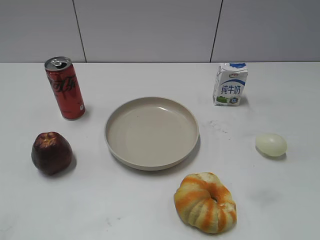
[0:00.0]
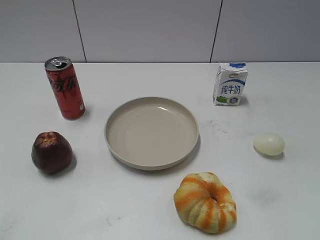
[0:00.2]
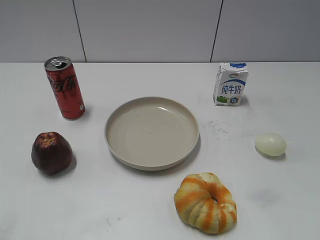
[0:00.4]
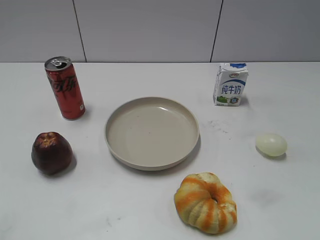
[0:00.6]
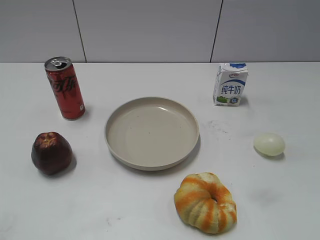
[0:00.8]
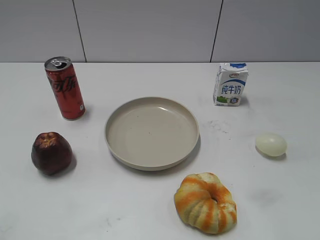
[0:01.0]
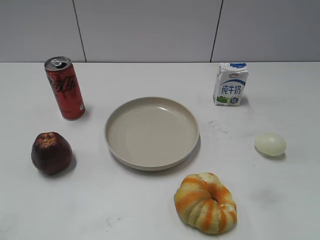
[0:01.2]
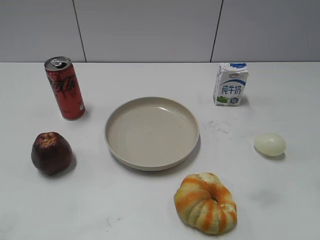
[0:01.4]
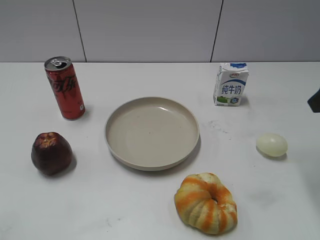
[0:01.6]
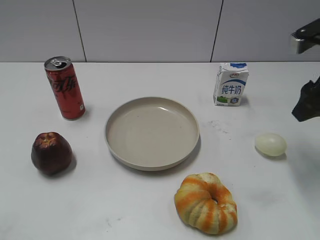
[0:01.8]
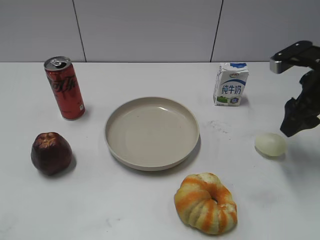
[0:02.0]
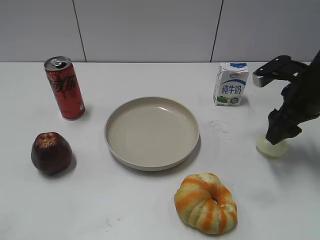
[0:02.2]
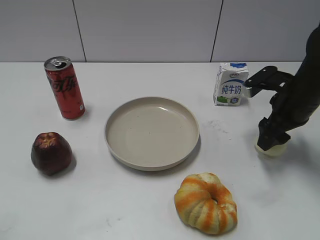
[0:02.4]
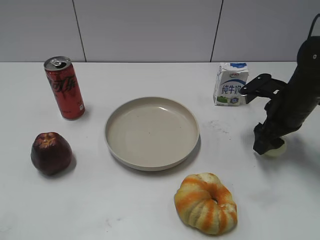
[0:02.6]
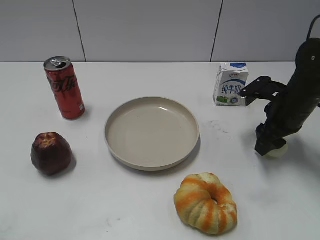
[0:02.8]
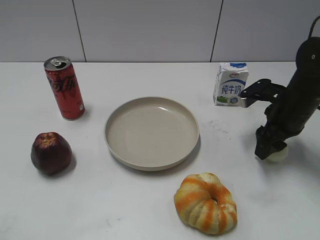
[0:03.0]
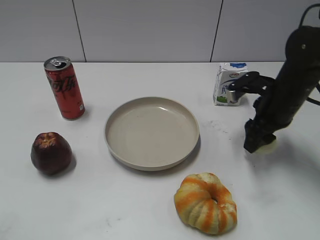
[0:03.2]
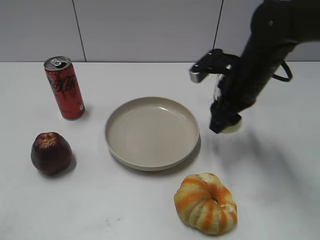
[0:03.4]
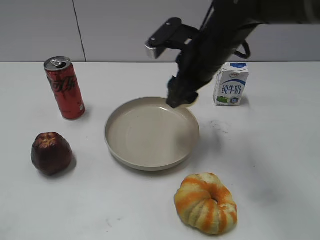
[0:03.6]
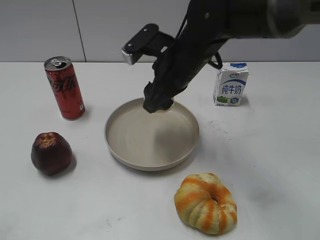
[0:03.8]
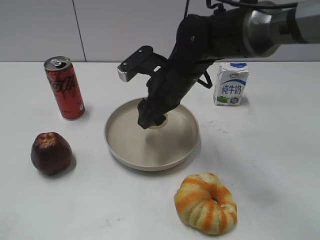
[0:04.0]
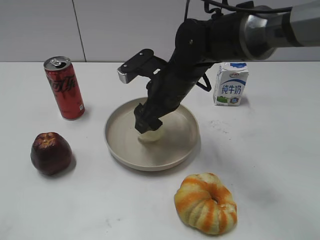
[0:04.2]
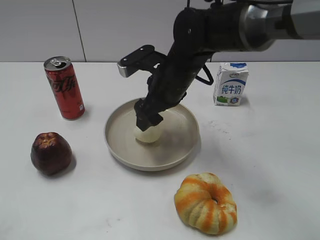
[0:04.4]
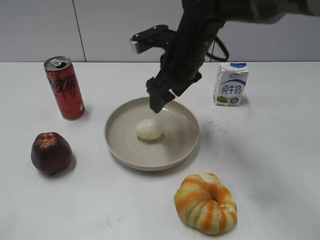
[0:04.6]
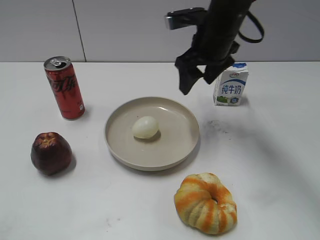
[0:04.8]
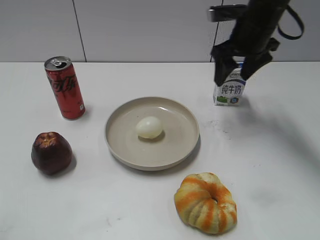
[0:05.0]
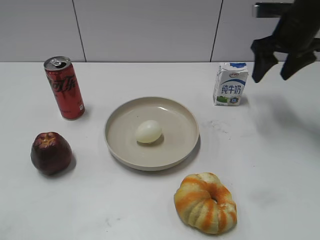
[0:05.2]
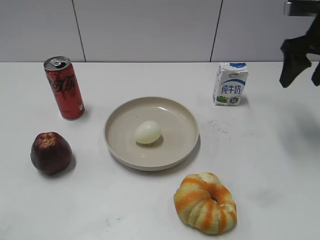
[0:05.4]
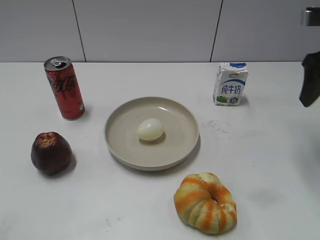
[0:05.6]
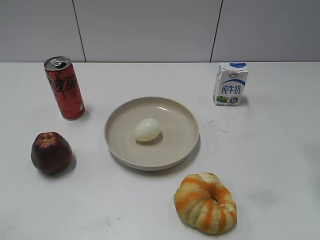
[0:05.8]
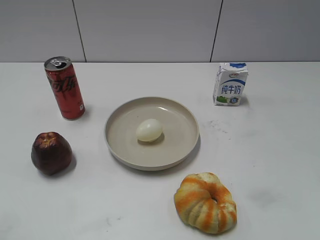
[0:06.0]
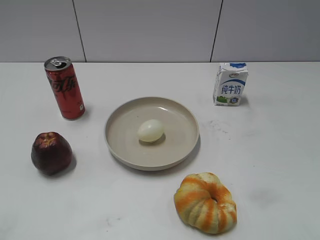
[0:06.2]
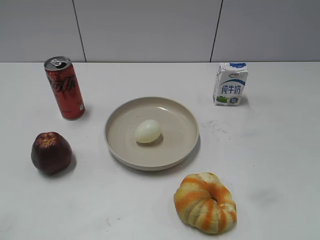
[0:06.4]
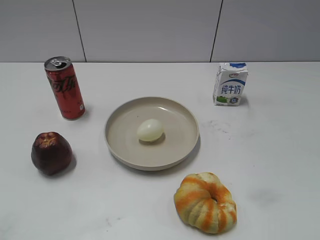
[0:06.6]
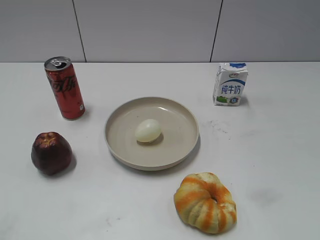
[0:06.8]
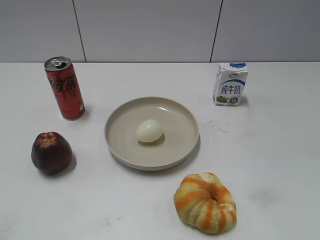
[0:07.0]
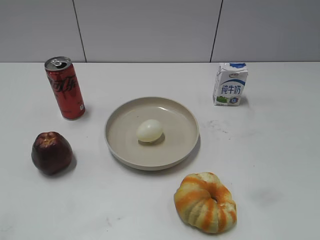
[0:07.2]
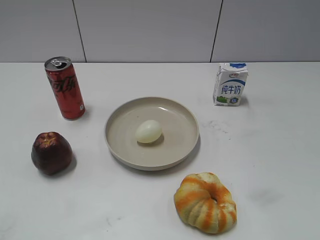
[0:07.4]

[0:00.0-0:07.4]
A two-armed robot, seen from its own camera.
Step, 0:00.0 to 0:02.8: Grasp the egg with right gripper.
Step, 0:03.0 to 0:04.4: Place the egg on the plate with right gripper.
0:01.4 to 0:03.0: The right gripper goes some 25 cm downward and forward, and closes.
0:03.0 to 0:04.4: The right gripper shifts some 20 cm to the left, and opens.
0:04.4 to 0:06.0: The right gripper goes some 30 cm to the right, backward and upward.

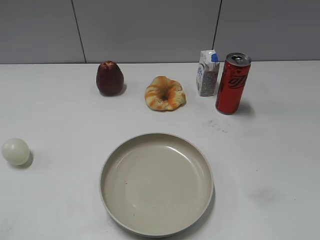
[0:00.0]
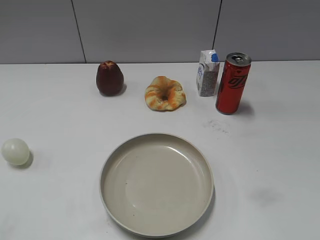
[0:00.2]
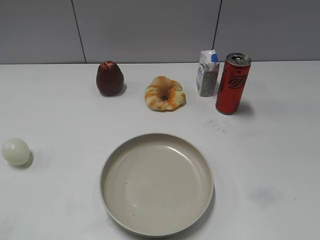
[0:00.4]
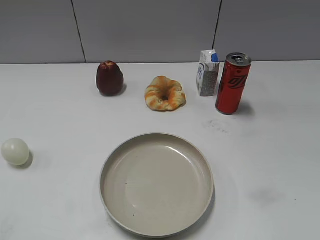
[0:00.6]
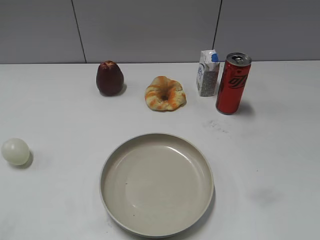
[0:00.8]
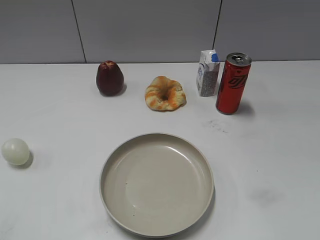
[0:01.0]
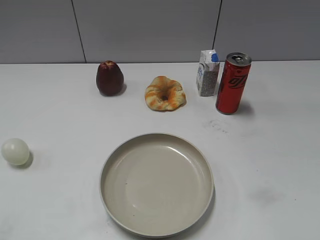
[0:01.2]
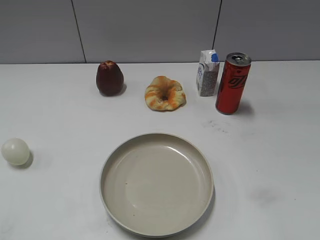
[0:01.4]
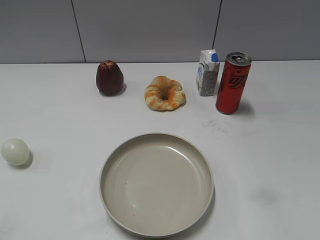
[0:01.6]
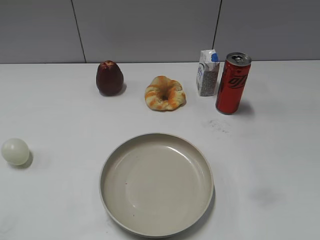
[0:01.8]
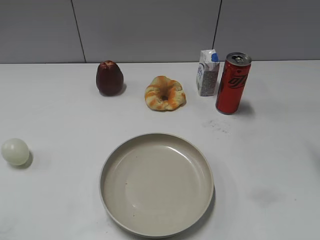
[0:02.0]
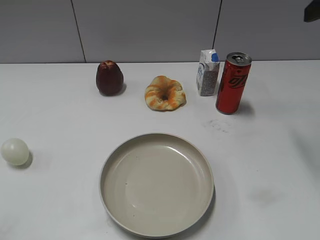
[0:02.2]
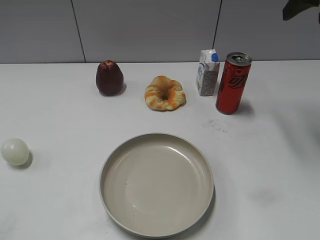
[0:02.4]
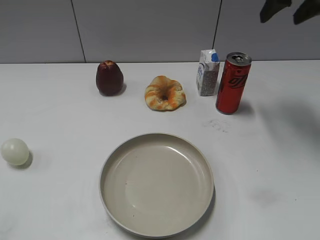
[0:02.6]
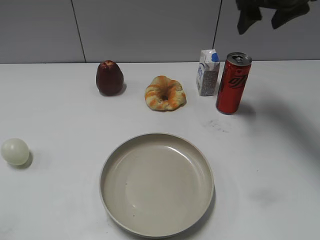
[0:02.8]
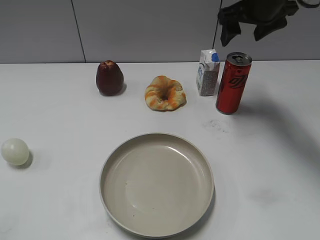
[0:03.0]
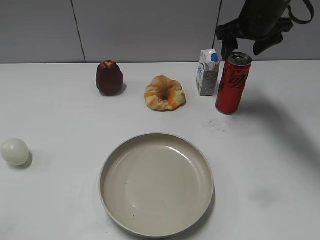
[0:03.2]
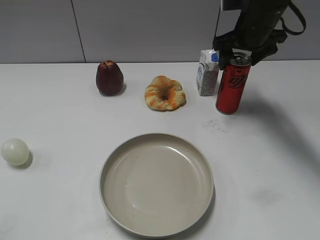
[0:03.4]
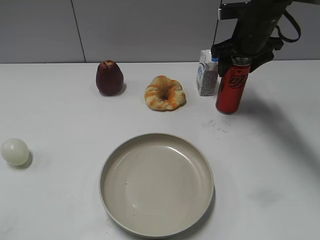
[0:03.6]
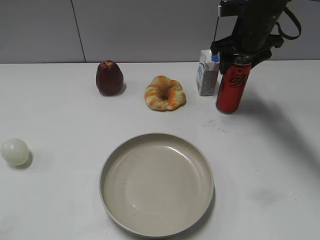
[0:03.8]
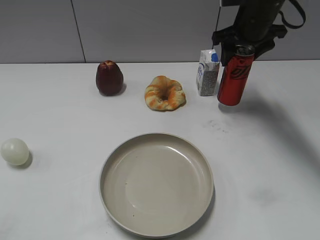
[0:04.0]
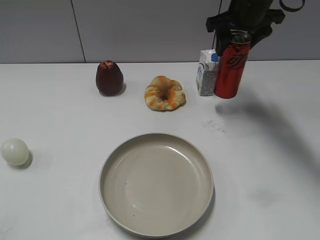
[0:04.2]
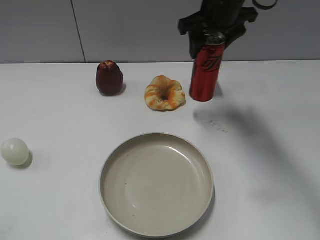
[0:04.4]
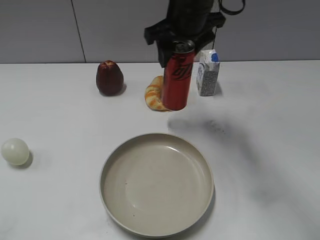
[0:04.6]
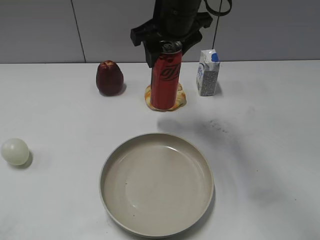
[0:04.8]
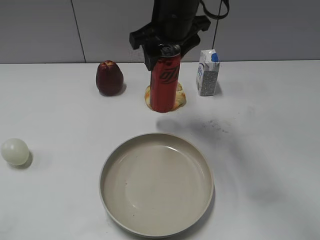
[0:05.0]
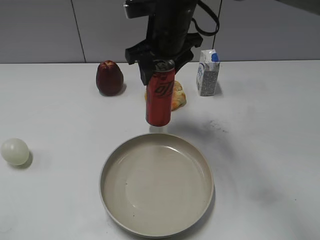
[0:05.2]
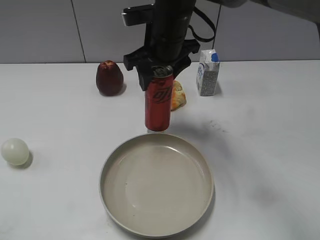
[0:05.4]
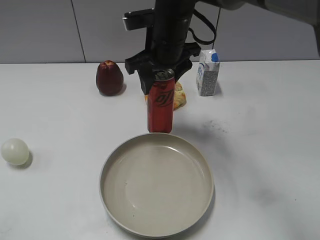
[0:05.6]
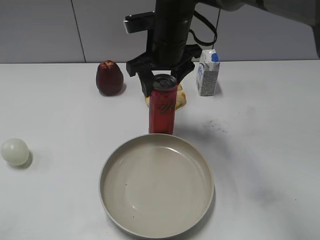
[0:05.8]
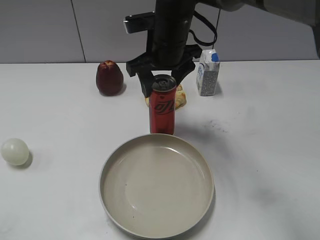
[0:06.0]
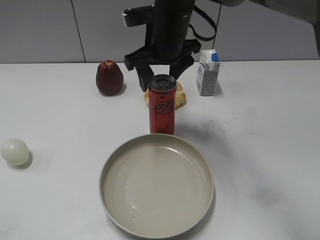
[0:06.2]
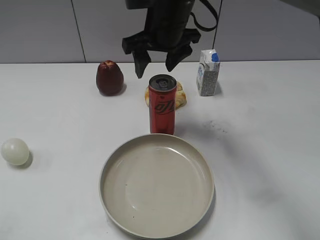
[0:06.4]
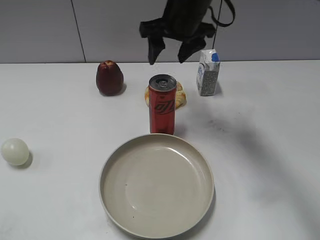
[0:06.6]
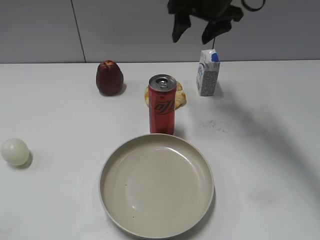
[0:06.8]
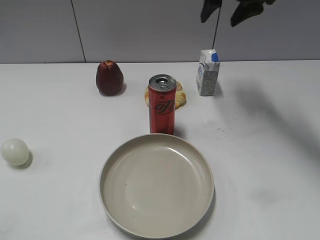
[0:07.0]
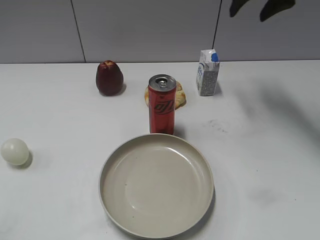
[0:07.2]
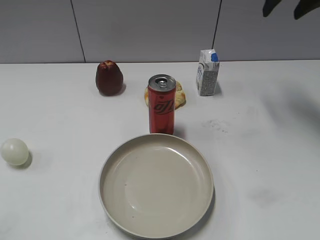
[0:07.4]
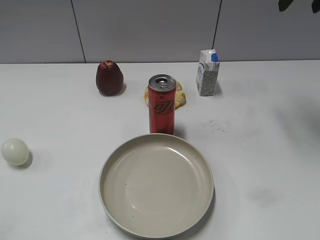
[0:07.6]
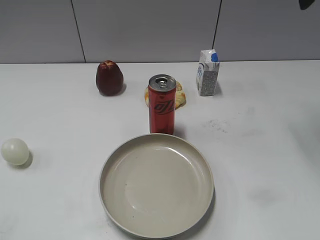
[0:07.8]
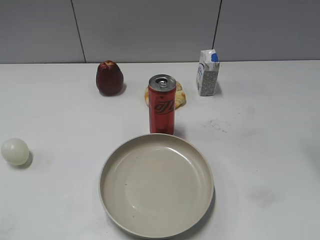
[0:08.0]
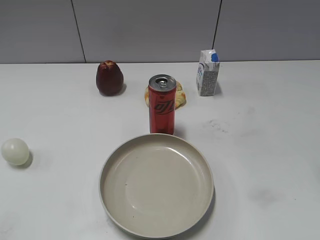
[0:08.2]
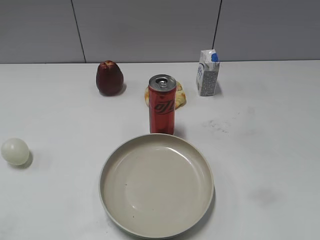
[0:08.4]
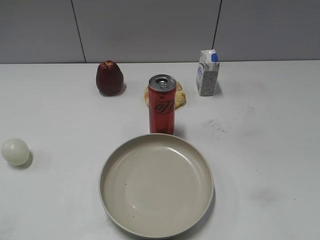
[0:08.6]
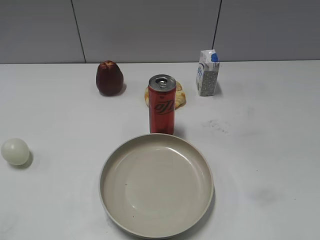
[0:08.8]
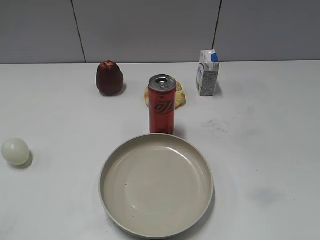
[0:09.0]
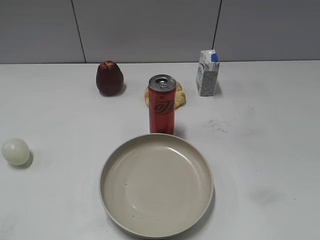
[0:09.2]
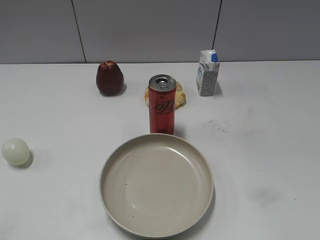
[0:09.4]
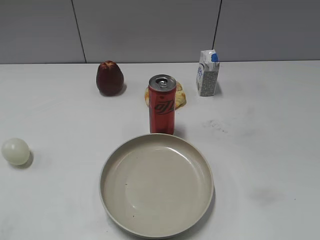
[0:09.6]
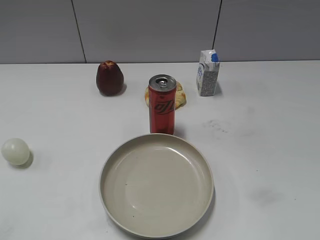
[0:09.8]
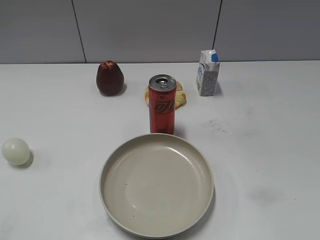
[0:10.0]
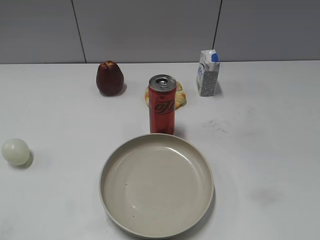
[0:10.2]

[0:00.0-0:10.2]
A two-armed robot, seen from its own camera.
Step, 0:00.8 to 0:03.6: Place the cola on the table with right gripper.
0:01.4 to 0:03.0: The right gripper heads forward, covering some 40 cm, and opens its fingers.
0:03.0 to 0:04.4: The right gripper moves to the left, about 10 cm, and closes up.
0:04.4 to 0:05.8: The right gripper shifts about 10 cm to the left.
0:05.8 to 0:07.2: The right gripper goes roughly 25 cm to the right and upward.
0:07.2 to 0:08.8: The right gripper heads backward, covering approximately 35 cm, and closes up.

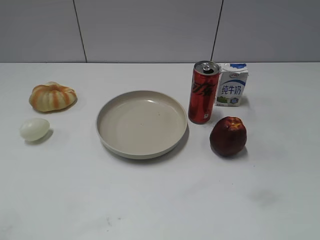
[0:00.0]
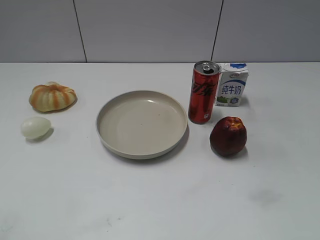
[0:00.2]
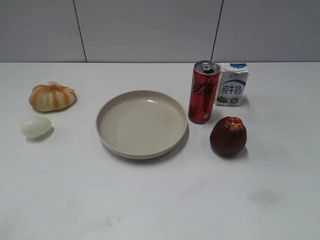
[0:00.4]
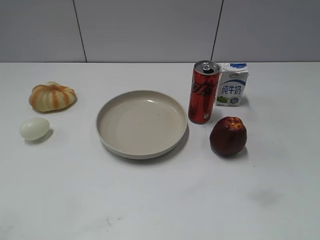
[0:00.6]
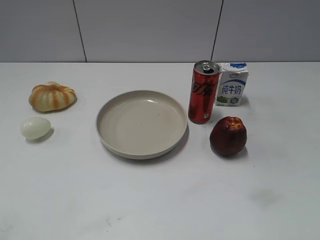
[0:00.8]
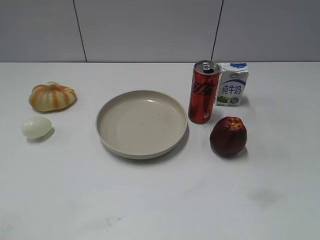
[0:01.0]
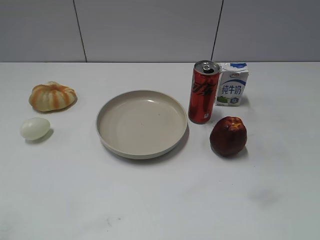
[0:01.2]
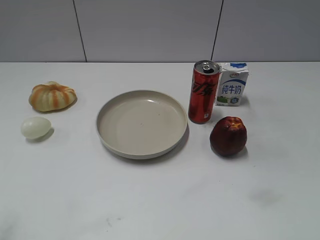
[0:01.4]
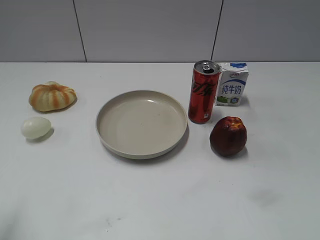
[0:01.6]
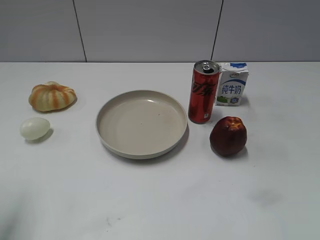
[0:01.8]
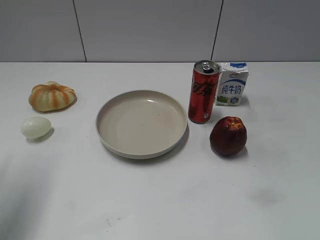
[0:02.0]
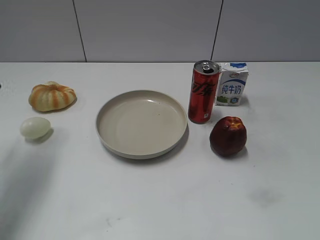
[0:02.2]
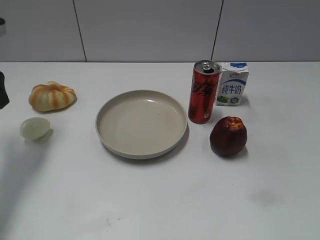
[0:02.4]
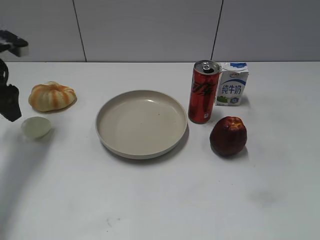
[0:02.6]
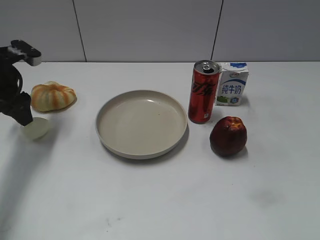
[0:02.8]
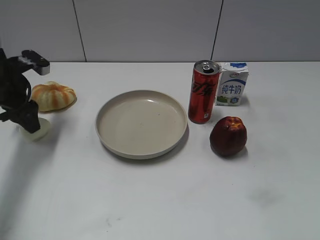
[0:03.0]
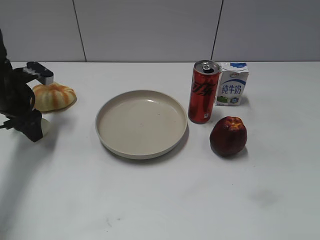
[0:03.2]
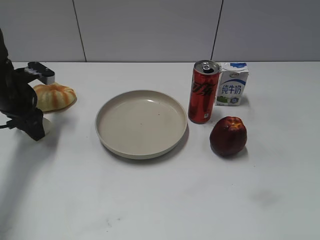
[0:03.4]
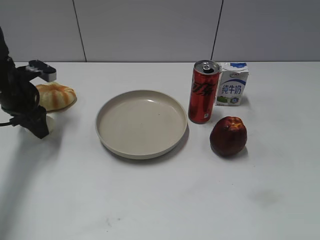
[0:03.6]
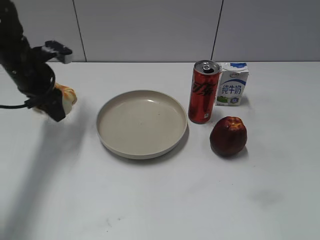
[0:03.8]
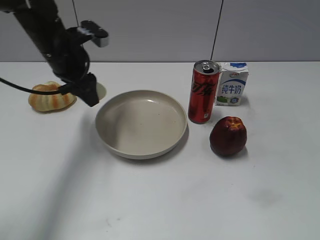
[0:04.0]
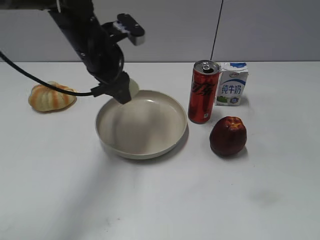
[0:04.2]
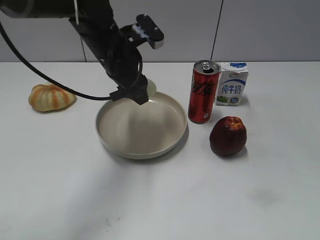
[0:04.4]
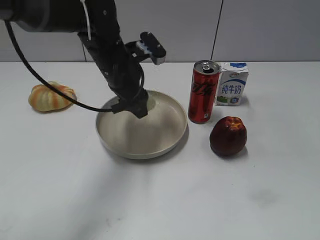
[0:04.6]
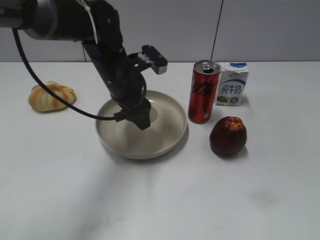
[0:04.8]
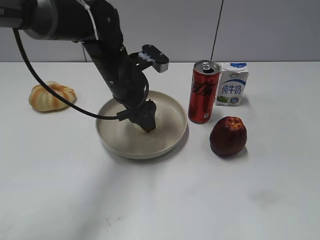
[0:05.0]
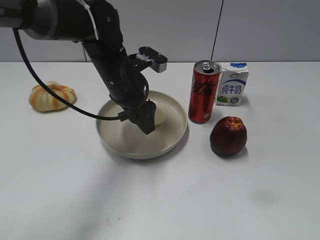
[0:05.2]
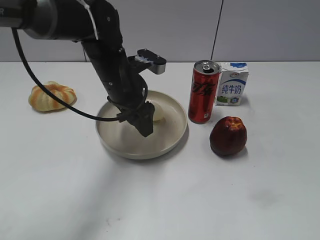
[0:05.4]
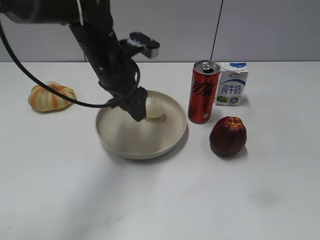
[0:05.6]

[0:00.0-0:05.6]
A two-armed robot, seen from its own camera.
Step, 0:00.8 to 0:03.4: Grasp the egg with left gripper.
0:01.4 to 0:02.8: The left gripper moves forward and downward, roughly 35 cm.
0:02.8 to 0:04.2: The left gripper moves to the right, about 20 cm, and closes up.
0:04.2 to 0:05.6: The left gripper opens.
